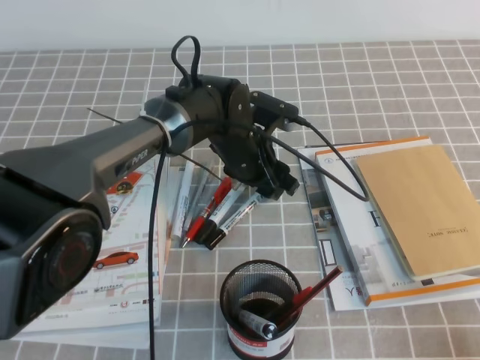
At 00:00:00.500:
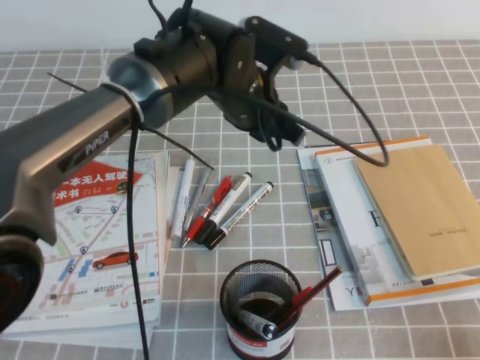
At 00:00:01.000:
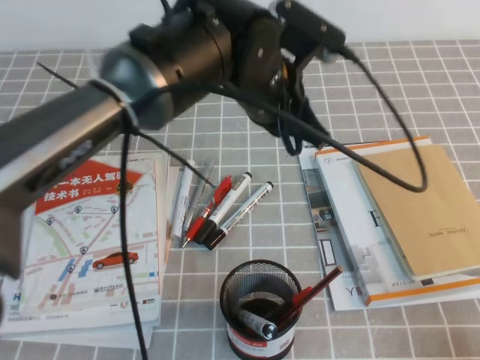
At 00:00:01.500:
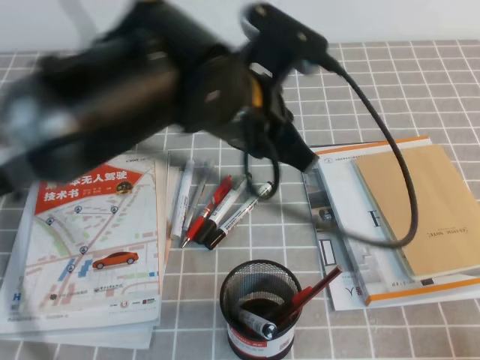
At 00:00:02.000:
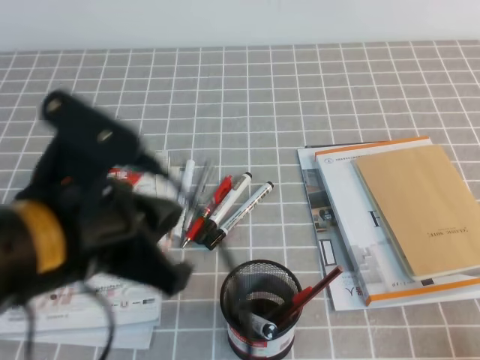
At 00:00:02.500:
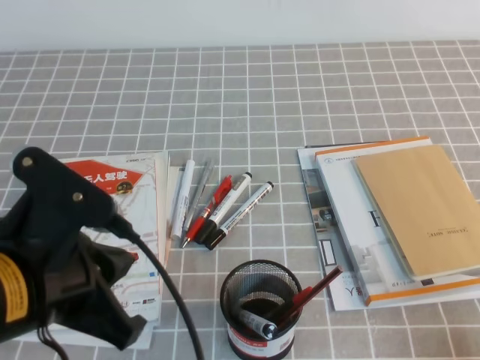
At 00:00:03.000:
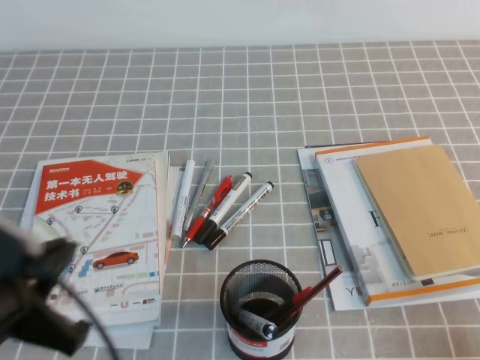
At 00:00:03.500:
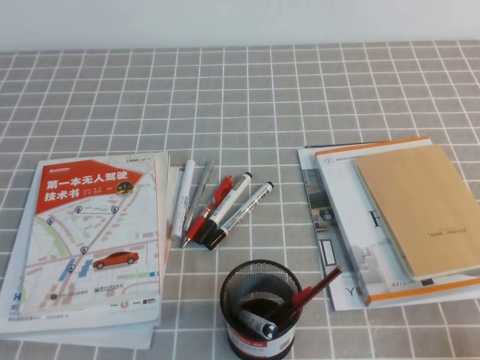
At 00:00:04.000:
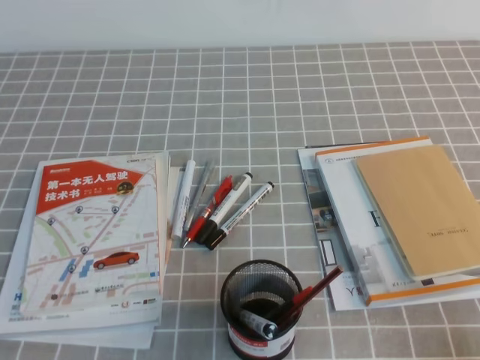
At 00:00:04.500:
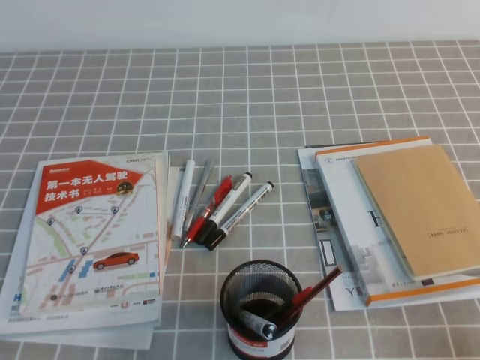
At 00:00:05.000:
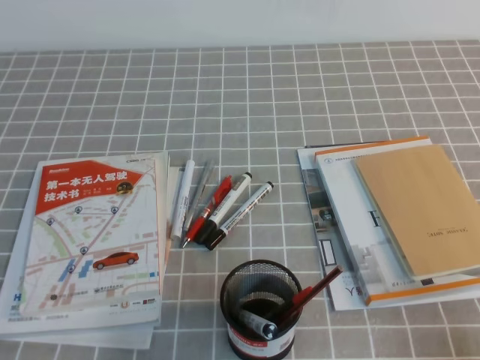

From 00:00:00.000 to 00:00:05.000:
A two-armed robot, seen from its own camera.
Step, from 00:00:00.000 to 00:00:05.000: Pick up the pen from the pen holder.
From 00:00:00.000 to 00:00:02.500: The left gripper shifts approximately 35 cm backward, to the left and upward, and closes its fingers.
From 00:00:02.500 to 00:00:05.000: The left gripper heads downward, to the left and backward, covering approximately 20 cm.
